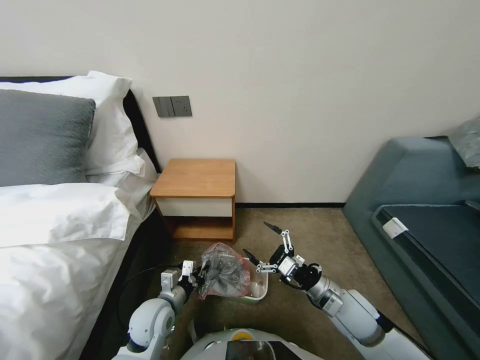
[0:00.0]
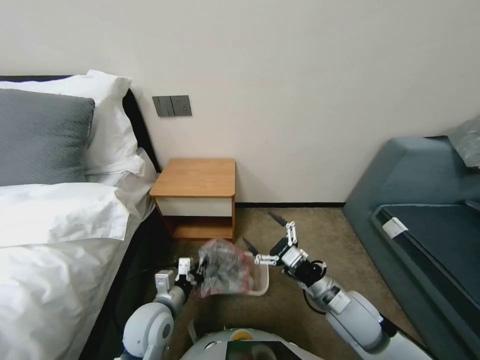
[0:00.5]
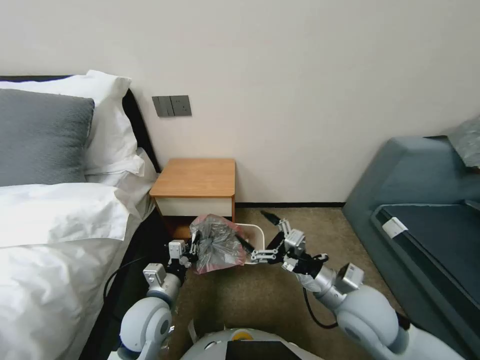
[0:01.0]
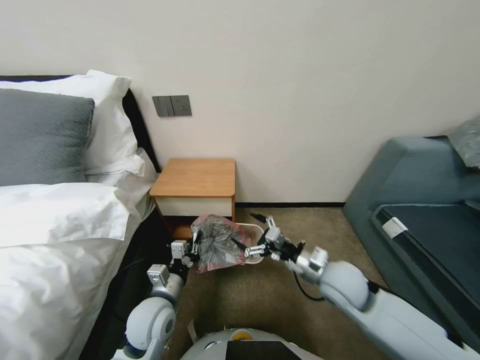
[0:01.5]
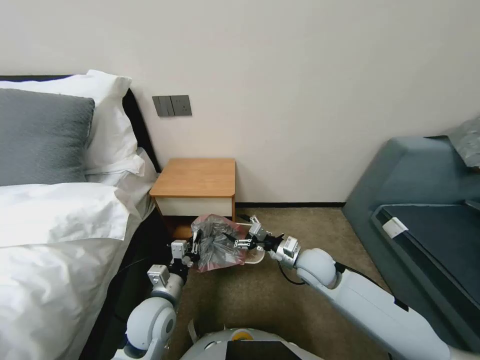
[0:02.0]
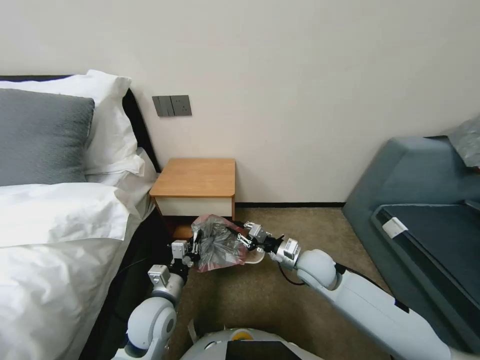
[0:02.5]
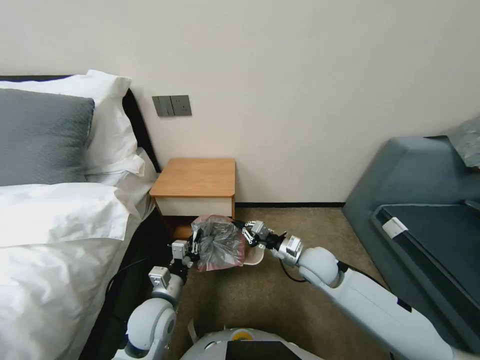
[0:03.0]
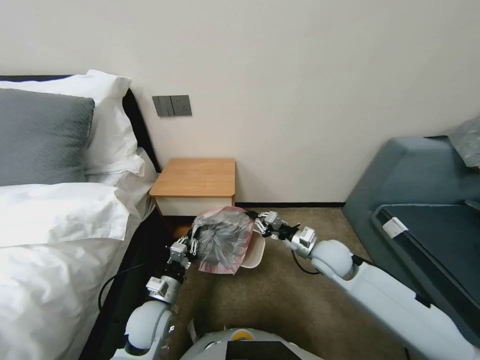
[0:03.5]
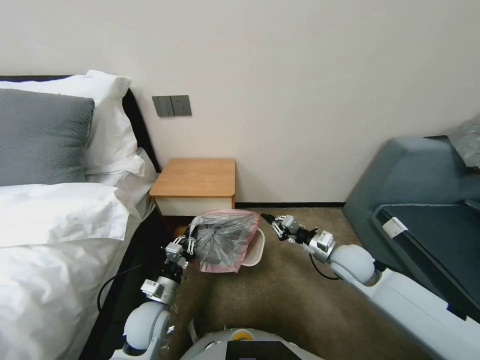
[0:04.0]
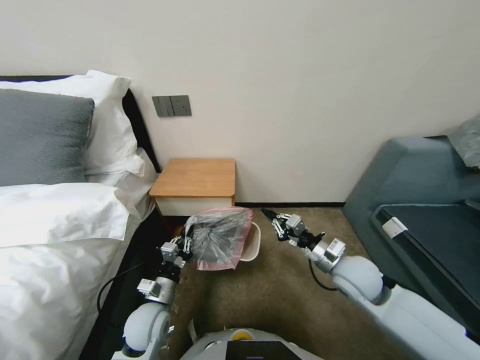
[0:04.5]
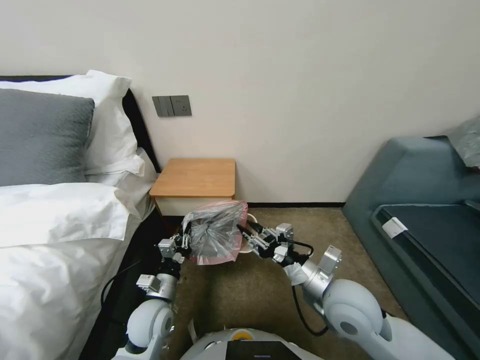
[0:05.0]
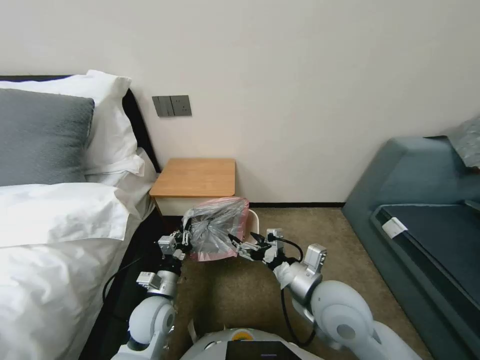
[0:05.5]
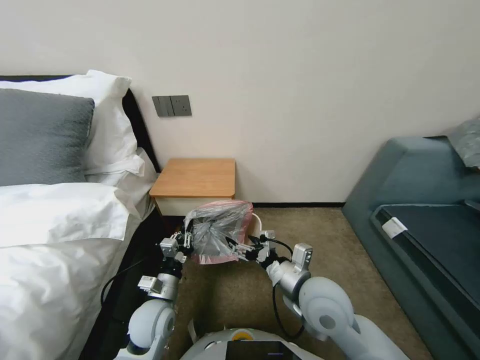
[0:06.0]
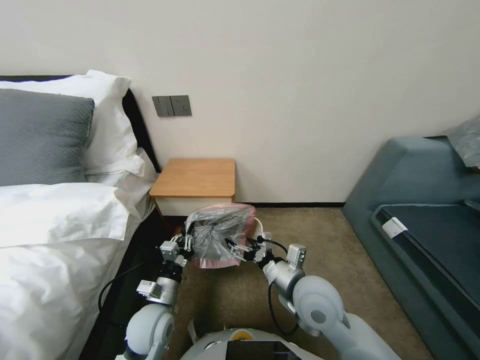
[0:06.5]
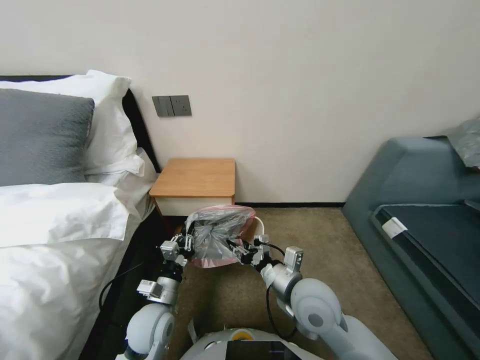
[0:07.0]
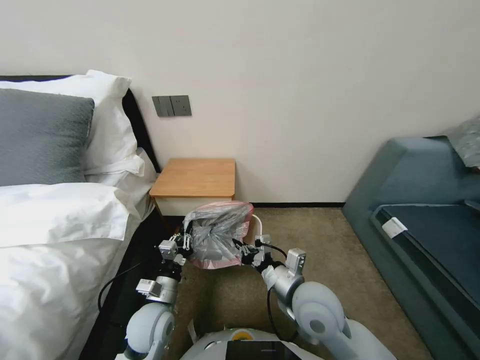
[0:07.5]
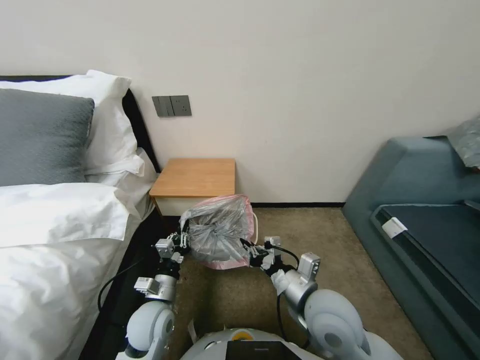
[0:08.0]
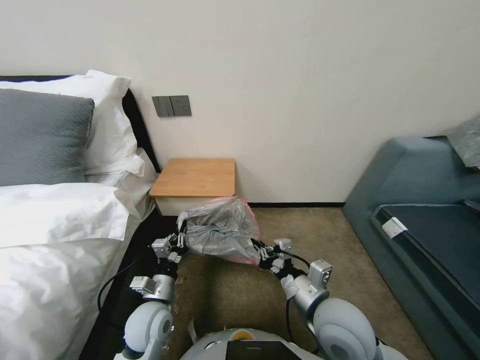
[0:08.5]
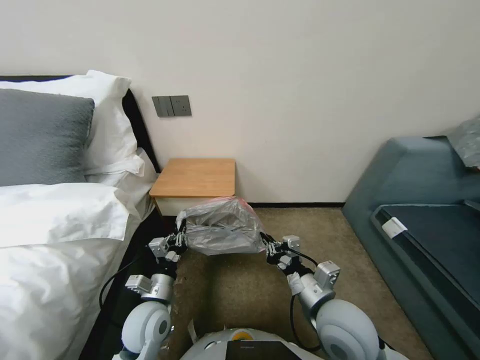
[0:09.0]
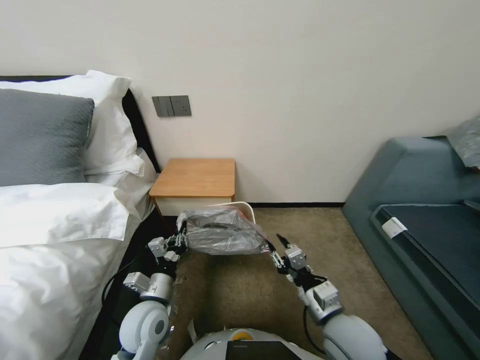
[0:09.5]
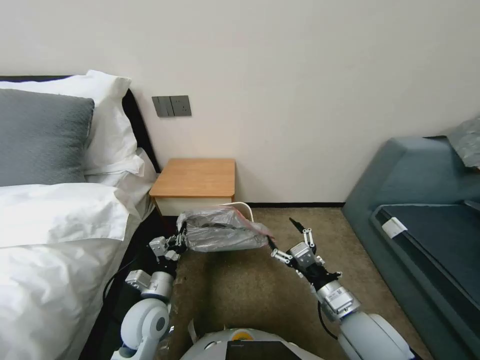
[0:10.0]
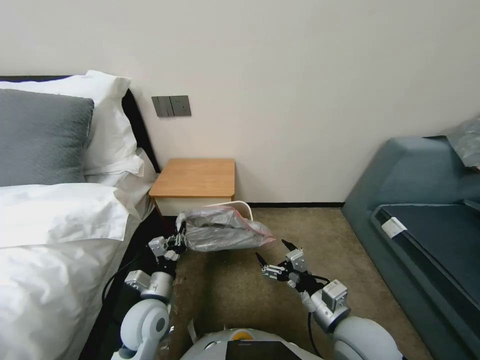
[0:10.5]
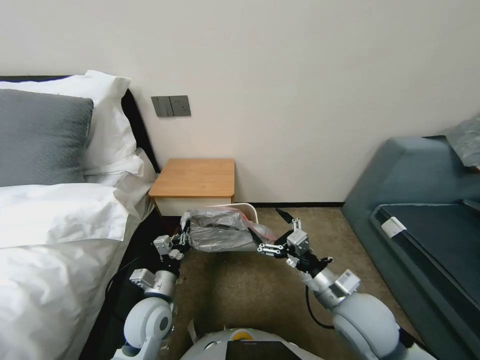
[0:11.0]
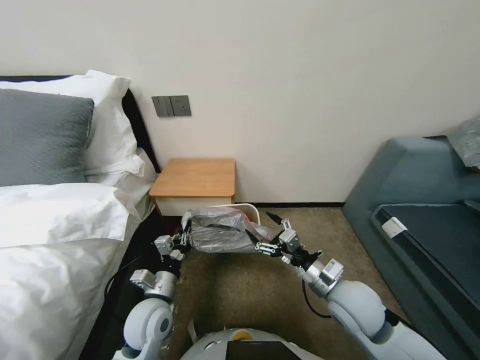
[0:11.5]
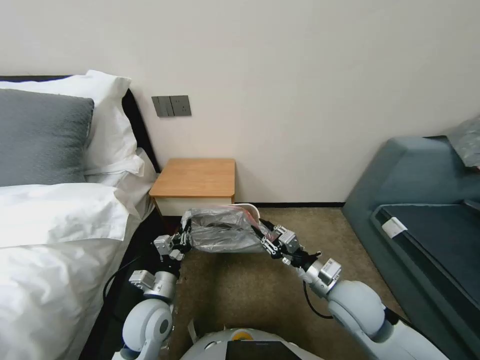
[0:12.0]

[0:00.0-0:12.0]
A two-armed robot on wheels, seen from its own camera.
Task of the whole recording: Pick up the garbage bag from the table and place it over the trash can.
0:00.0 to 0:02.0: The right gripper shifts roughly 10 cm forward and to the left.
0:02.0 to 0:04.0: The left gripper goes about 5 cm downward. The right gripper shifts approximately 10 cm to the right, and closes its fingers.
0:04.0 to 0:06.0: The right gripper goes approximately 20 cm to the left, backward and upward, and opens.
0:06.0 to 0:08.0: The right gripper closes.
0:08.0 to 0:10.0: The right gripper goes some 5 cm to the right, and opens its fingers.
0:10.0 to 0:12.0: The right gripper moves forward, approximately 5 cm, and closes.

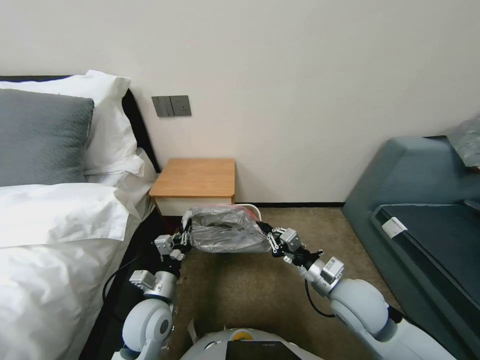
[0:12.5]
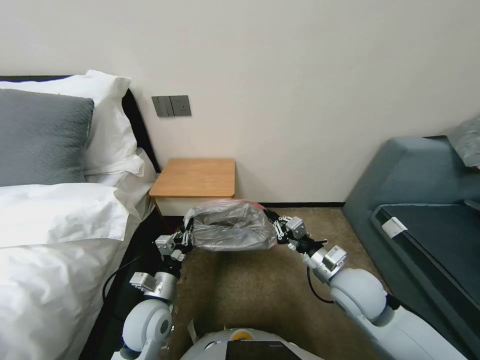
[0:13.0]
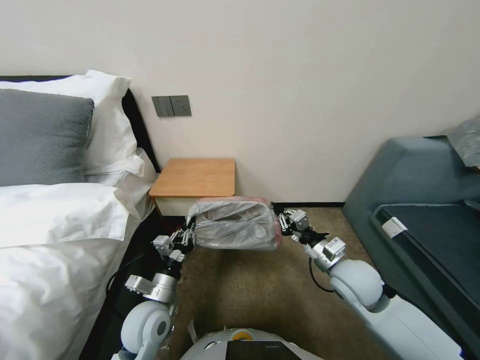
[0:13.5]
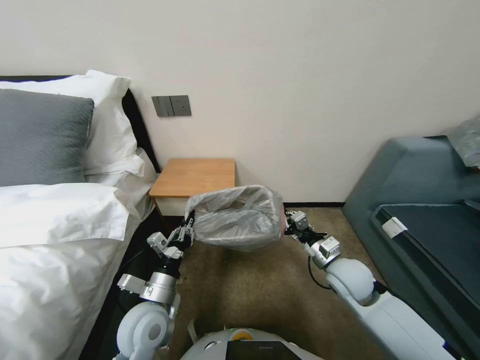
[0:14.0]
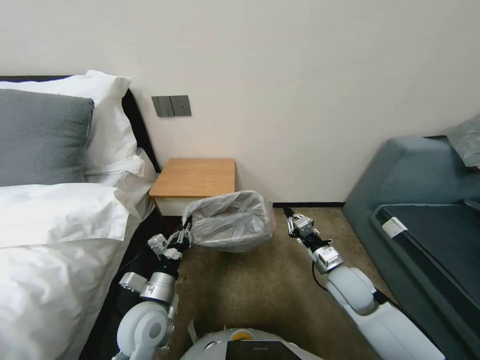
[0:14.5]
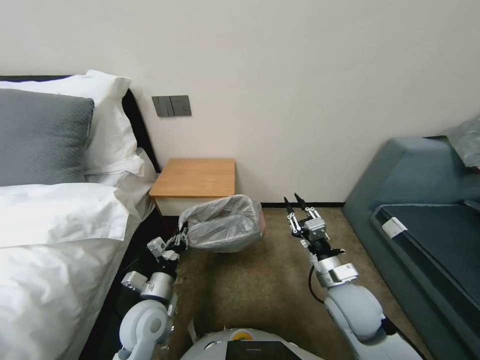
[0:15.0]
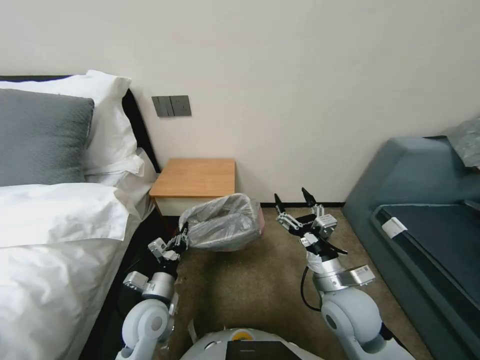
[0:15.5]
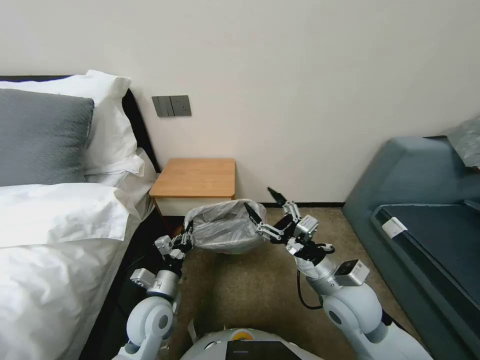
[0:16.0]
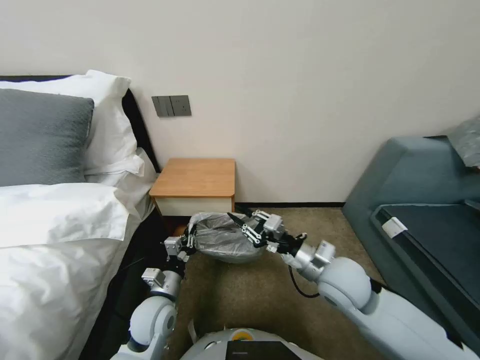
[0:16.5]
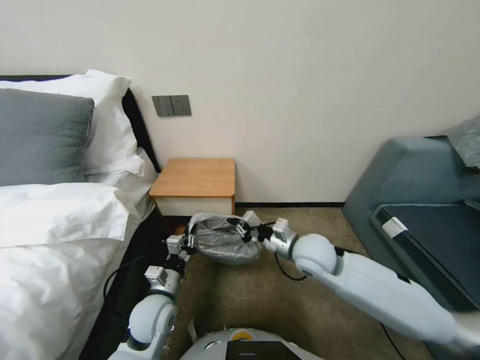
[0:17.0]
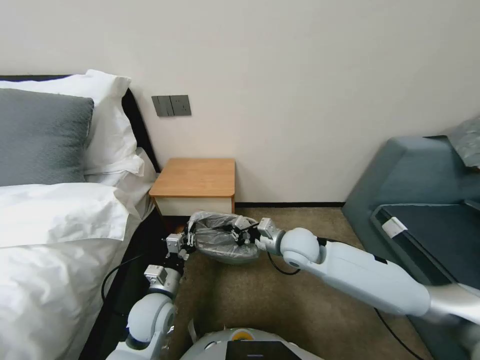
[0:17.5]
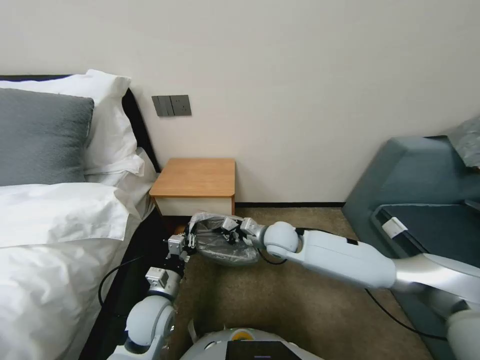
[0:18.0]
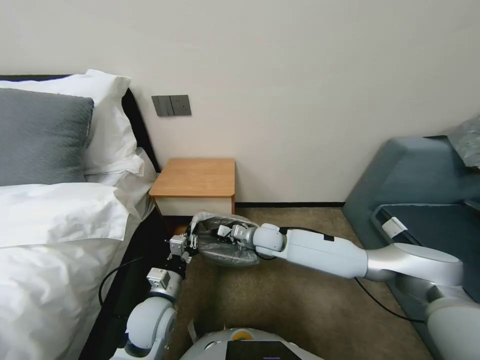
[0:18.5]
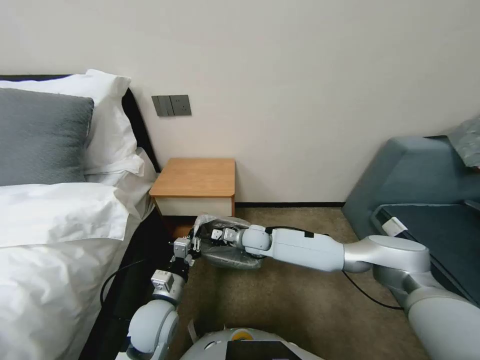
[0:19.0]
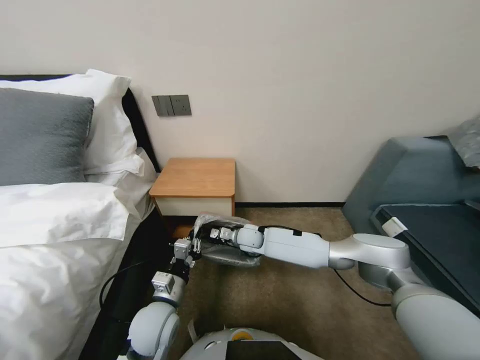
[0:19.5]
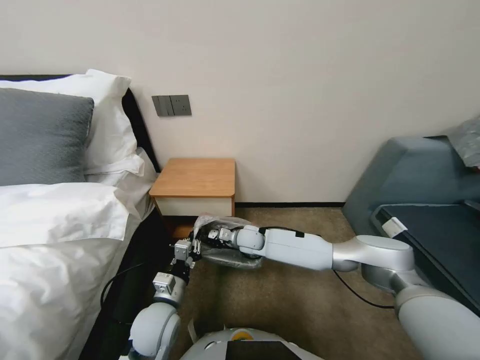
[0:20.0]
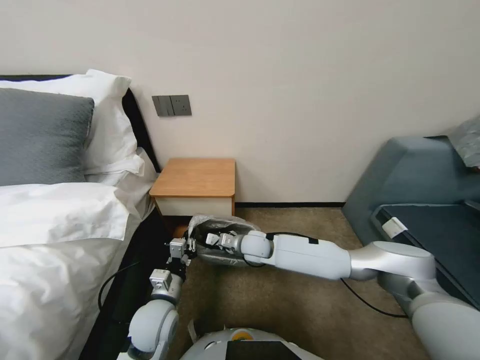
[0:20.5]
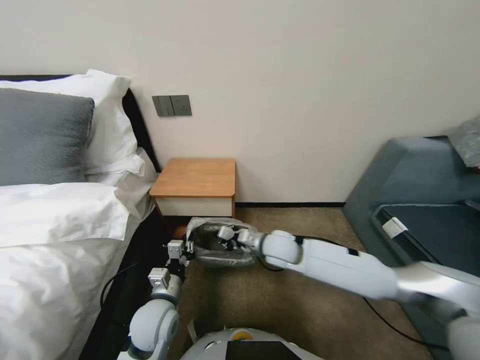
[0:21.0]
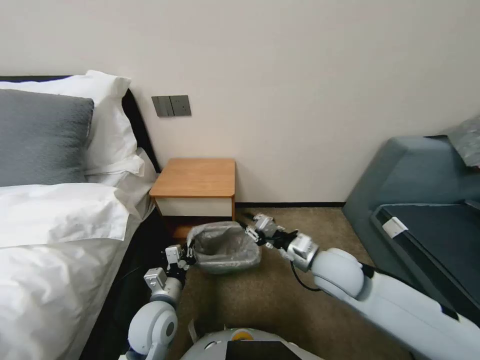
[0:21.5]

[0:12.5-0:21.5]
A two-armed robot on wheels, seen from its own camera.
Task of the whole recording: Pick up the garbage bag from the table and place it over the trash can.
0:12.5 to 0:14.5: The right gripper moves forward and downward, about 10 cm.
0:14.5 to 0:17.0: The right gripper heads to the left and upward, covering roughly 15 cm, and opens, then closes again.
0:17.0 to 0:19.5: The right gripper travels forward, to the left and downward by some 25 cm.
0:19.5 to 0:21.5: The right gripper shifts approximately 25 cm backward, to the right and upward.

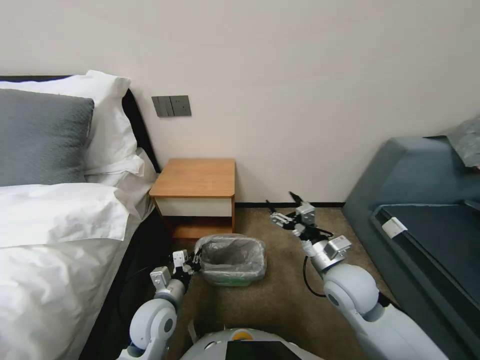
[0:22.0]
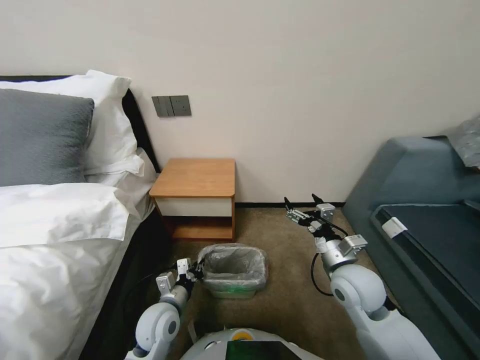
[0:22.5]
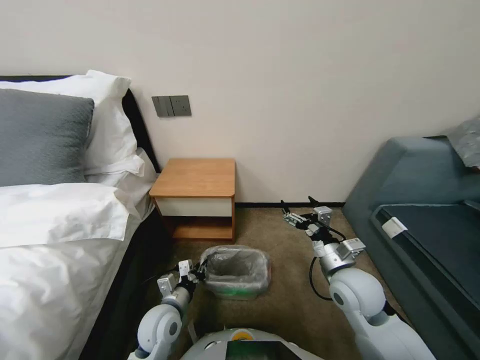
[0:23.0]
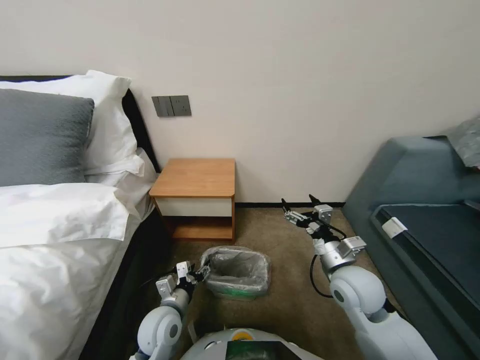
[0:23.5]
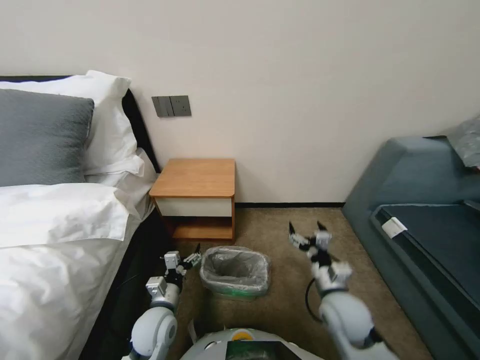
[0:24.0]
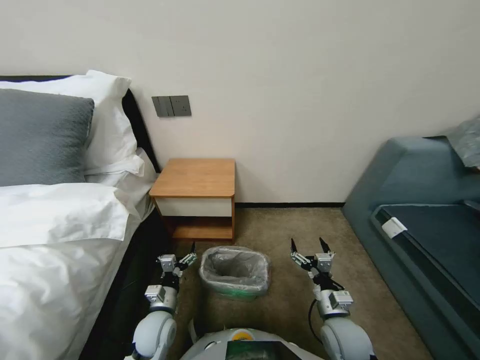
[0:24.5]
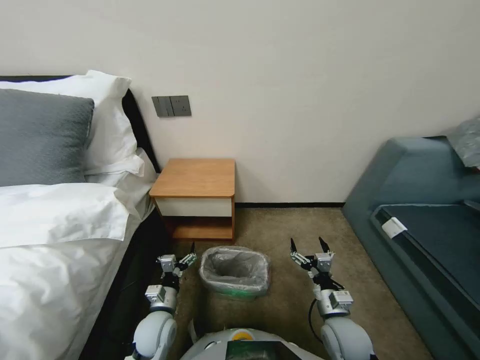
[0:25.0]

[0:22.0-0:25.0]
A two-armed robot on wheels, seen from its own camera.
Task of the whole recording: Pick up the garbage bag from the table and place it over the trash can.
0:22.0 to 0:23.5: The left gripper opens its fingers.
0:23.5 to 0:25.0: The right gripper goes approximately 15 cm downward and backward. The left gripper moves downward, roughly 5 cm, and opens.

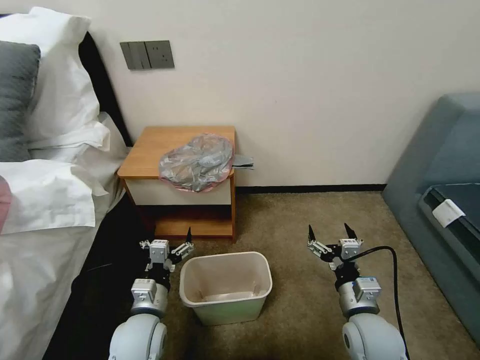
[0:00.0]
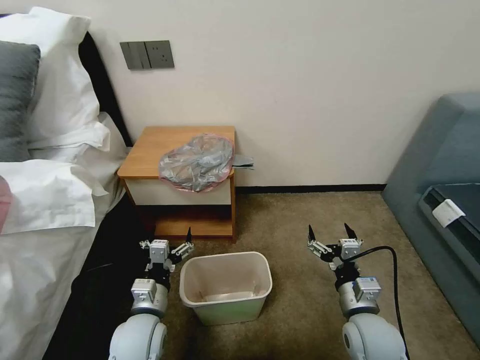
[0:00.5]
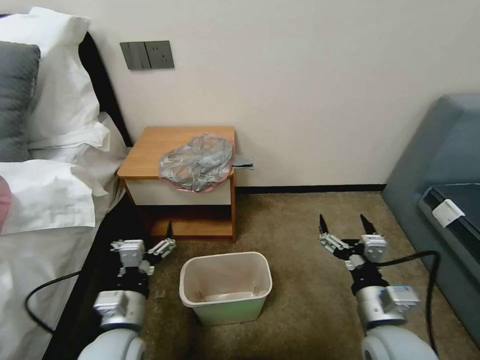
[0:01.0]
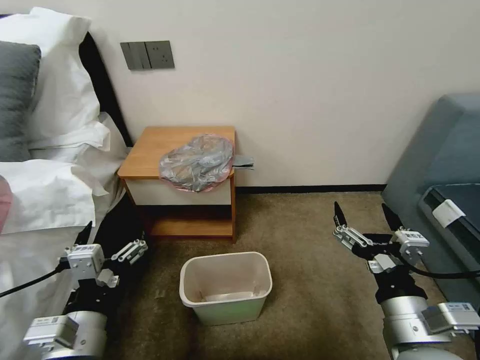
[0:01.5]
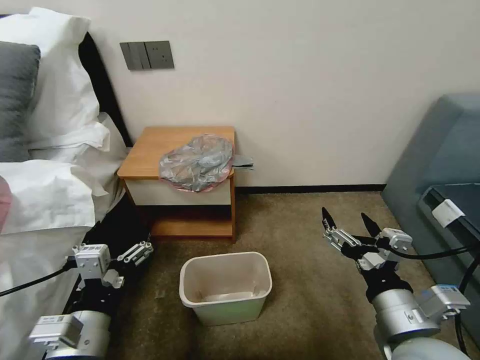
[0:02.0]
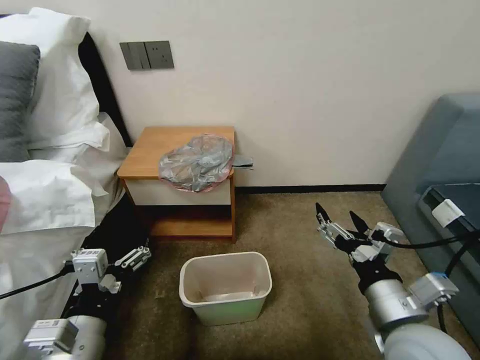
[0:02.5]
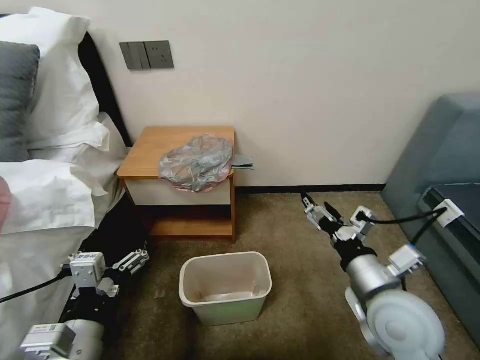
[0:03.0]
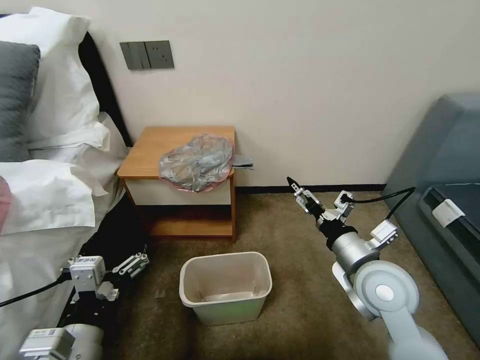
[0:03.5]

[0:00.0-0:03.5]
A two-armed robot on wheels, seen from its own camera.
Task of the whole recording: Pick up the garbage bag from the table and place it over the trash can.
0:02.0 to 0:03.5: The right gripper travels forward by roughly 10 cm.
